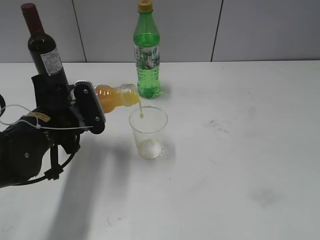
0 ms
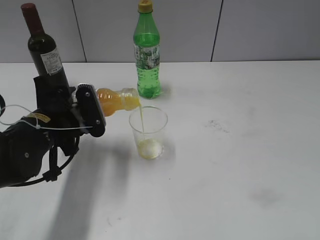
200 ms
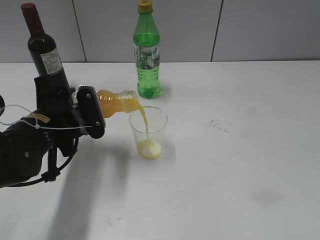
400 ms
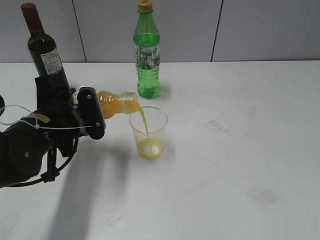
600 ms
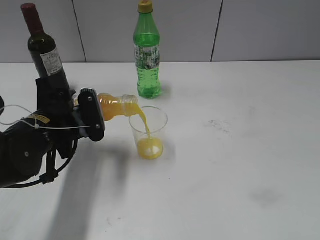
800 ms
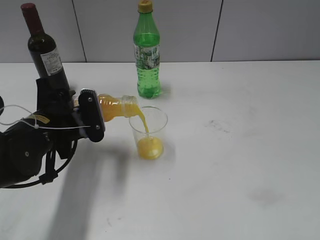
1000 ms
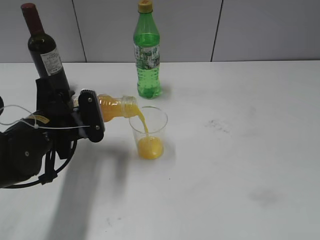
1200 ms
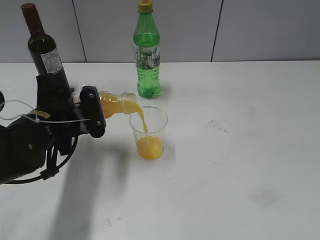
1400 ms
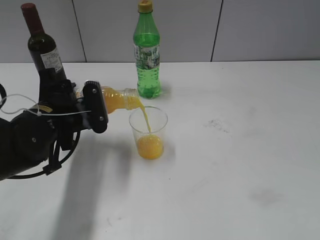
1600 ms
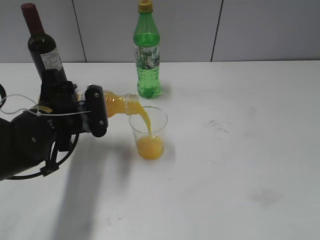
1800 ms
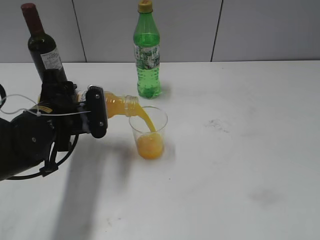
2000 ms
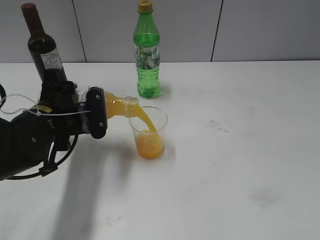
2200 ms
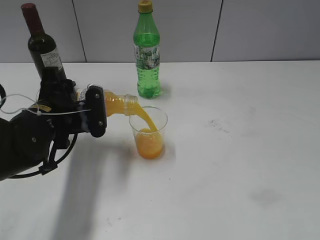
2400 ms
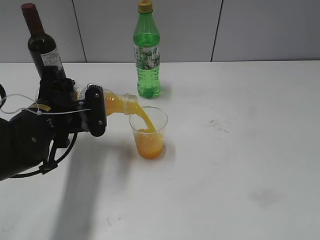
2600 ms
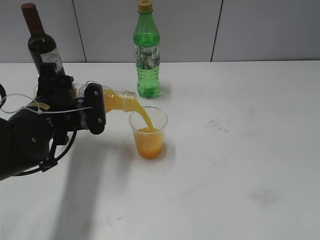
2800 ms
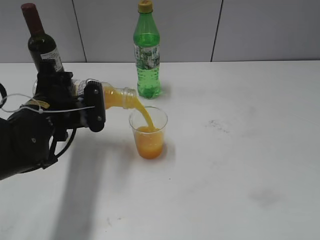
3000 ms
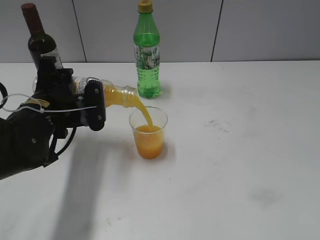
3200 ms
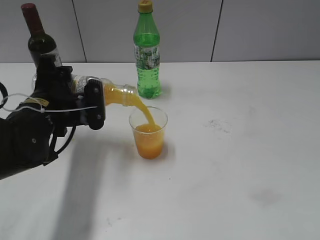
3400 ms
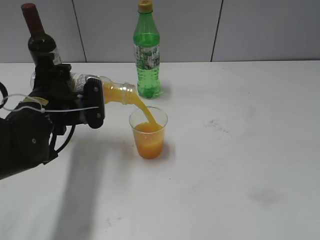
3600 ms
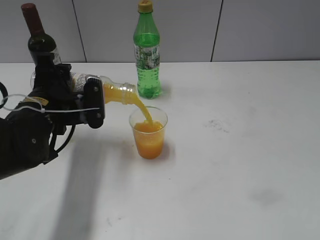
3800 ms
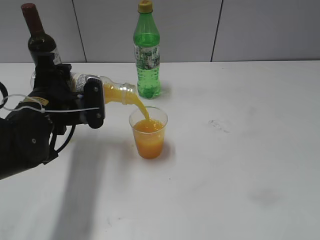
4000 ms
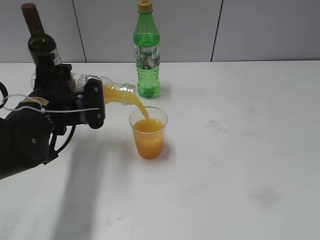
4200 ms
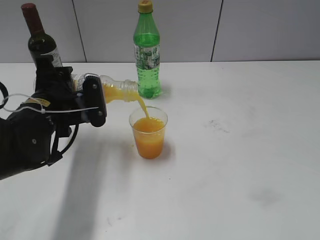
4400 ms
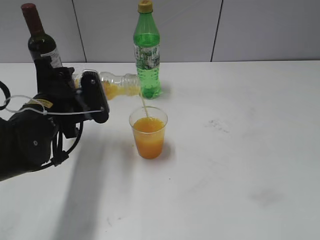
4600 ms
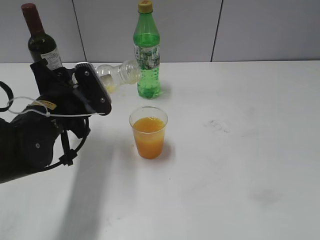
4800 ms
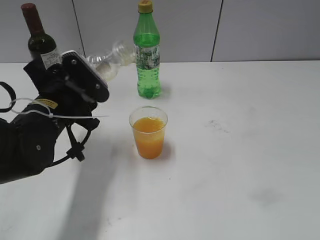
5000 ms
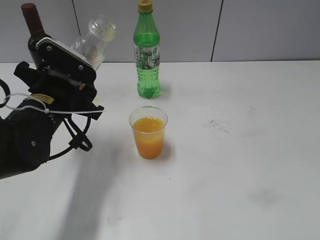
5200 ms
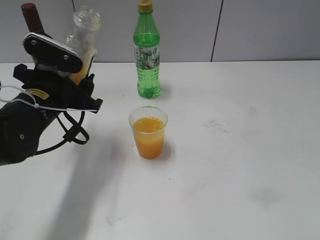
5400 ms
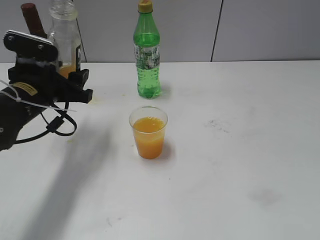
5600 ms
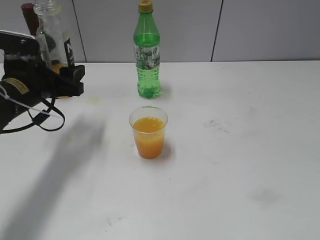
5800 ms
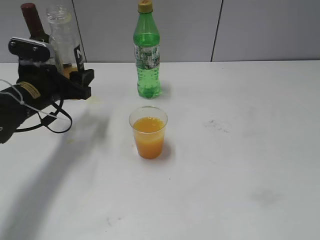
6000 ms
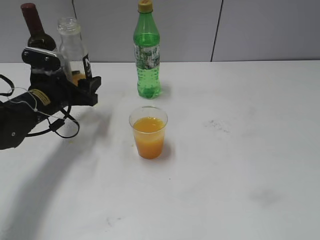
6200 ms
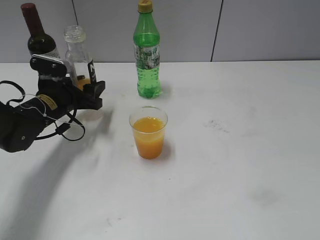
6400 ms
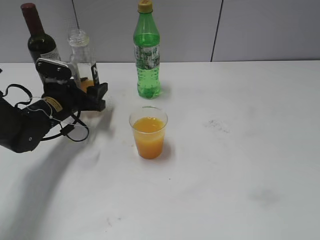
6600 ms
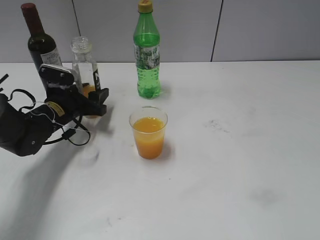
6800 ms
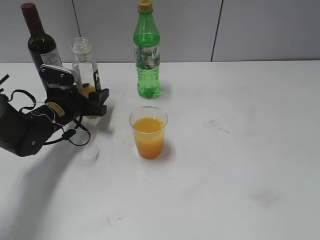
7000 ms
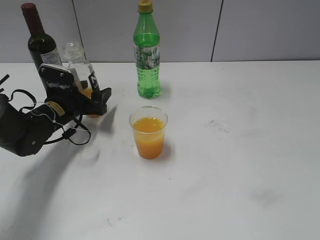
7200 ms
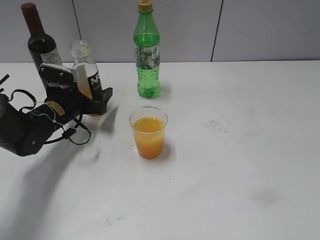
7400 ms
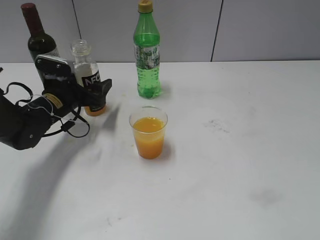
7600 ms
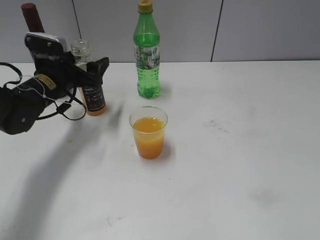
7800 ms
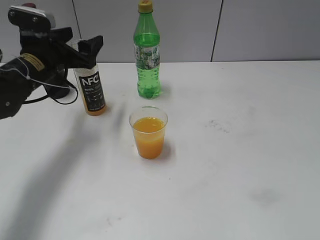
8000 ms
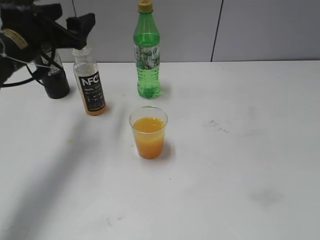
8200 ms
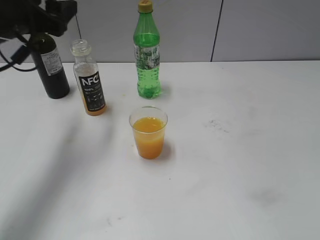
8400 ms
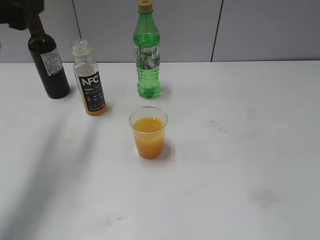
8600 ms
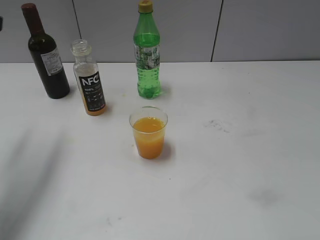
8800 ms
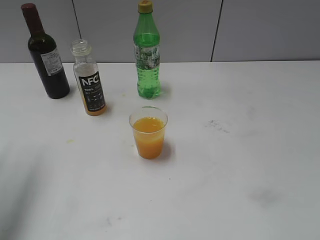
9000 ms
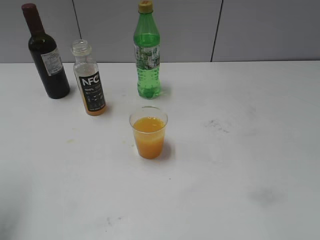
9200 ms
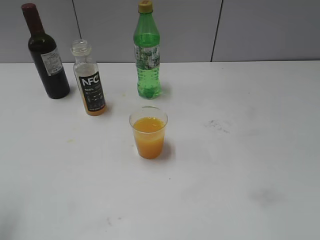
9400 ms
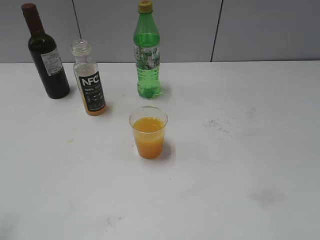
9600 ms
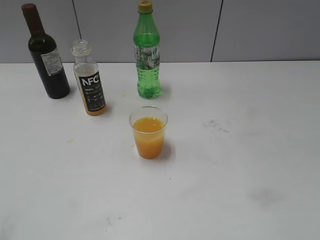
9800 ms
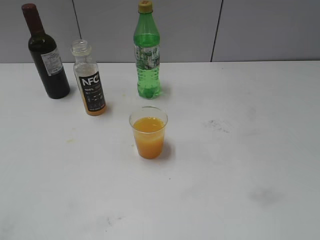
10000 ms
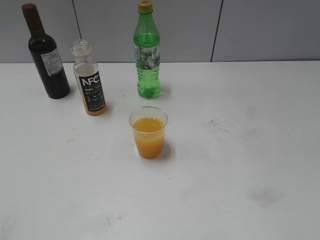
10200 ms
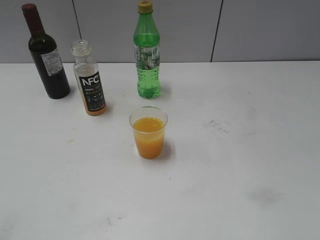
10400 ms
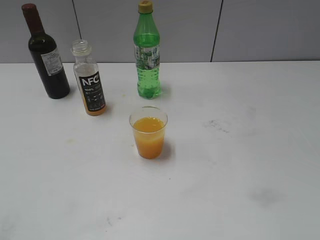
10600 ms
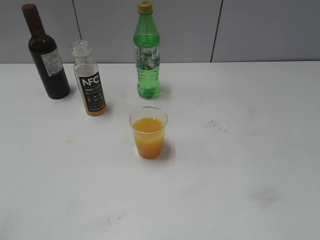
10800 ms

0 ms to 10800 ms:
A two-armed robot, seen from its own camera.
Step, 0 ms to 4800 ms: Pour the orange juice from bottle to cup with left gripper.
Step, 5000 ms to 7400 ms: Place the orange juice bottle on the table with left gripper.
0 ms to 3000 ms: The grippers stay close to where they were, moving slightly.
3000 ms to 4600 ms: The grippers make only small movements.
4600 ms to 6200 ms: The left gripper is displaced forward by some 10 cm.
6200 ms to 7800 ms: The left gripper opens its fingers.
7800 ms to 9200 ms: The left gripper moves backward, upward and to the left, about 30 cm.
9200 ms to 10800 ms: The left gripper is displaced backward by about 20 cm.
